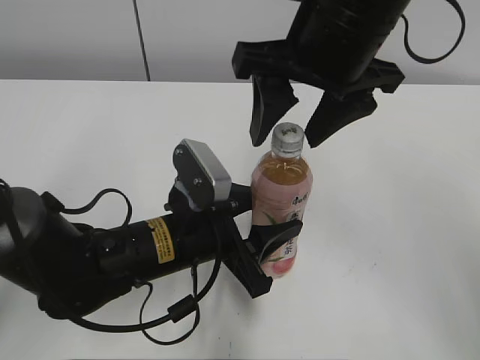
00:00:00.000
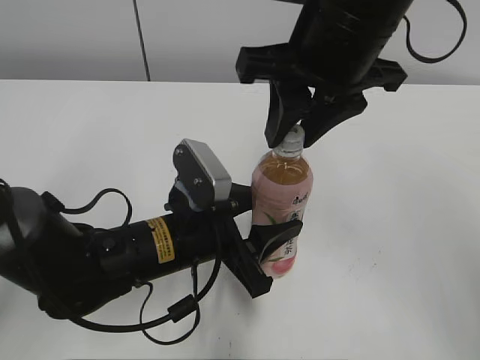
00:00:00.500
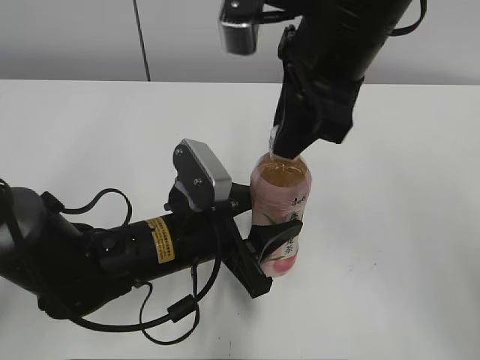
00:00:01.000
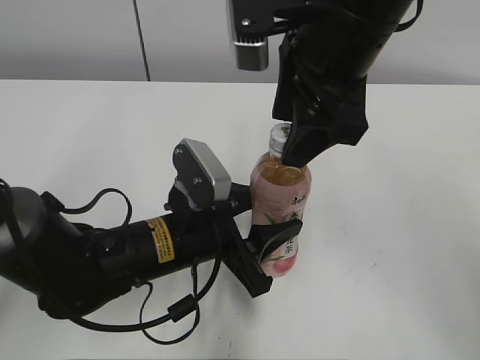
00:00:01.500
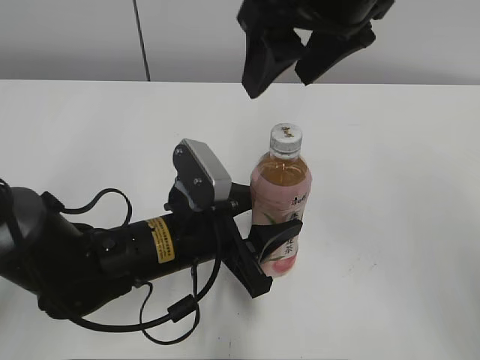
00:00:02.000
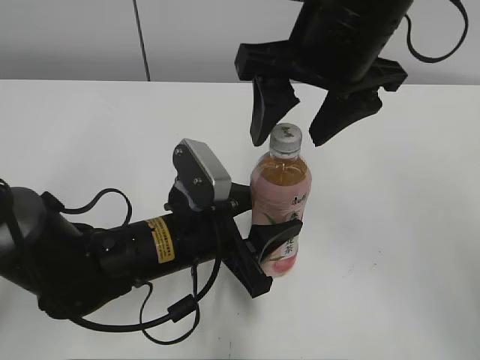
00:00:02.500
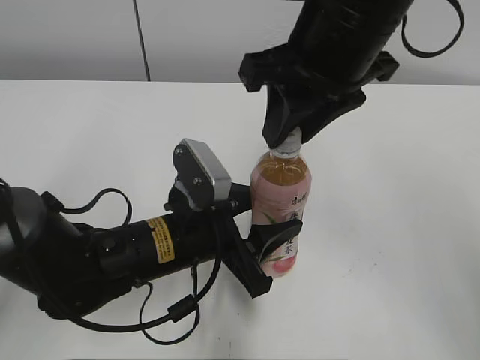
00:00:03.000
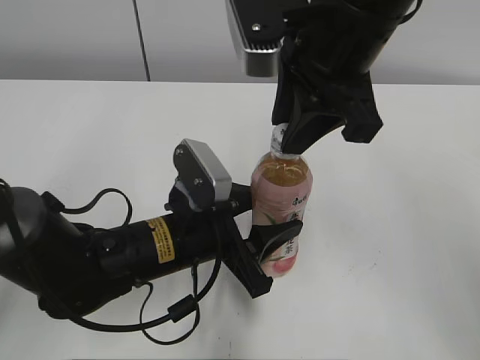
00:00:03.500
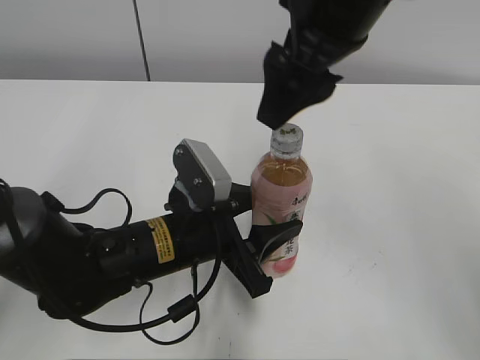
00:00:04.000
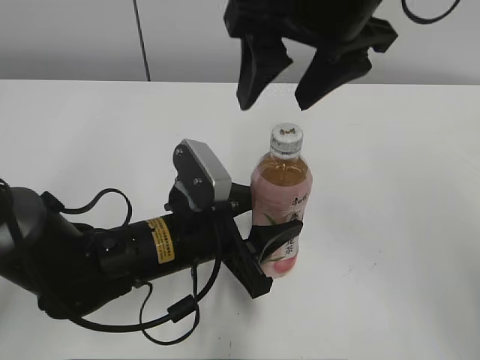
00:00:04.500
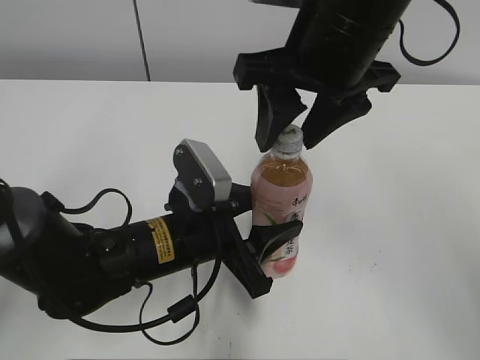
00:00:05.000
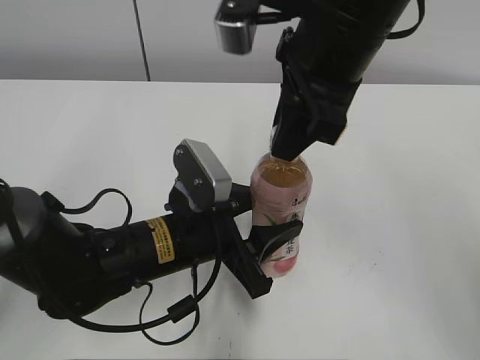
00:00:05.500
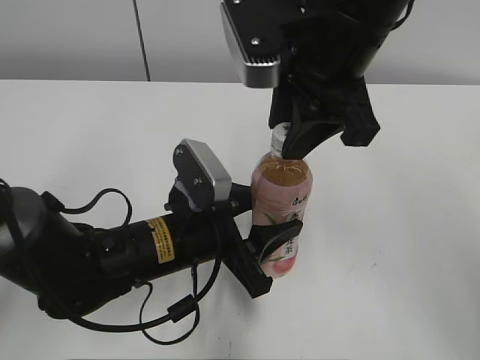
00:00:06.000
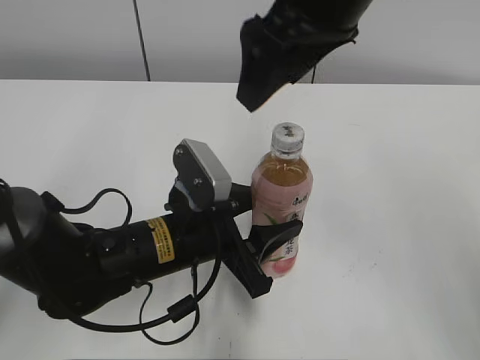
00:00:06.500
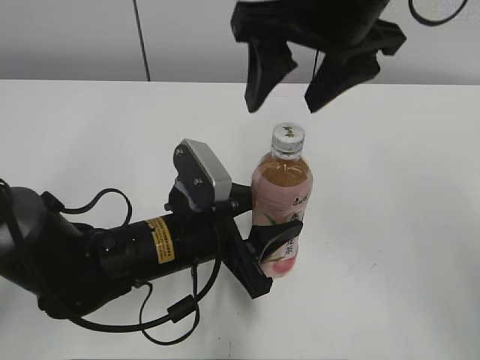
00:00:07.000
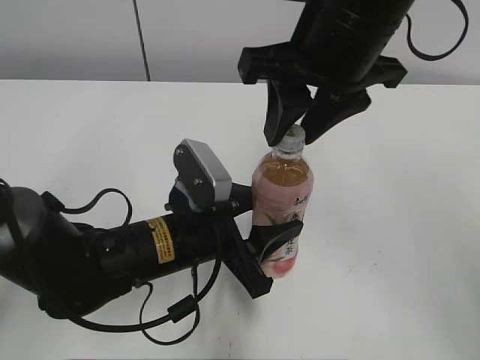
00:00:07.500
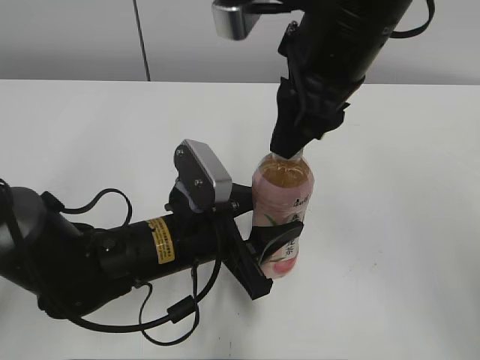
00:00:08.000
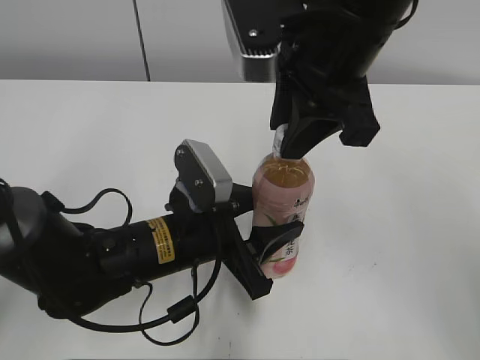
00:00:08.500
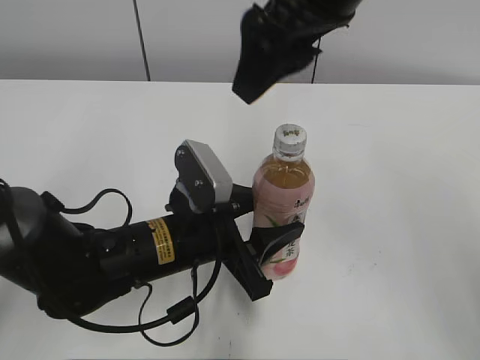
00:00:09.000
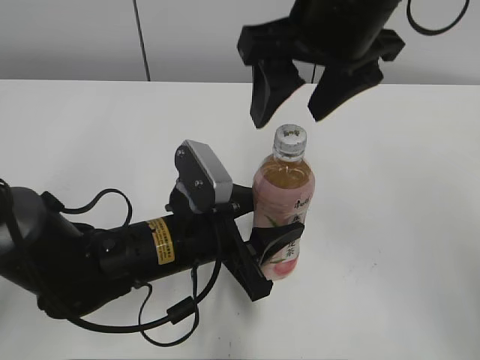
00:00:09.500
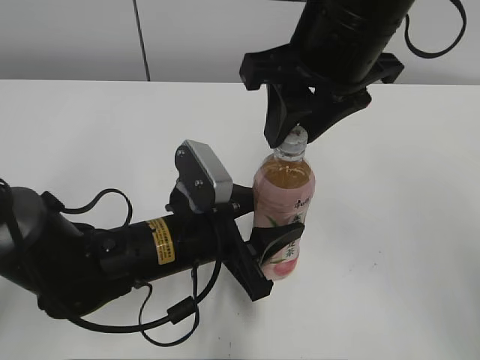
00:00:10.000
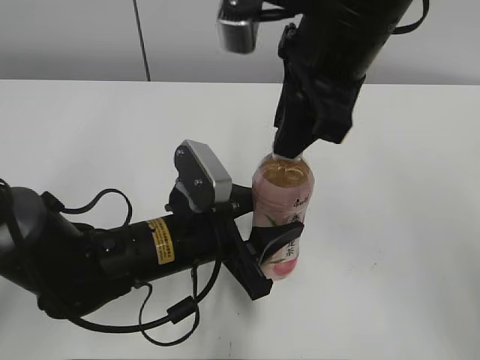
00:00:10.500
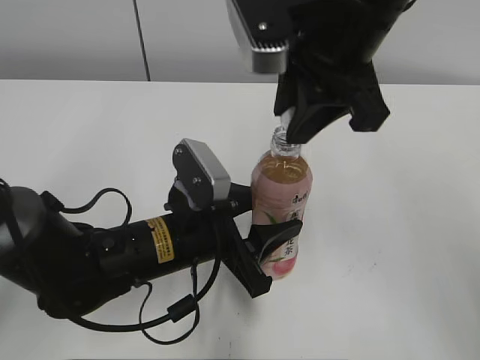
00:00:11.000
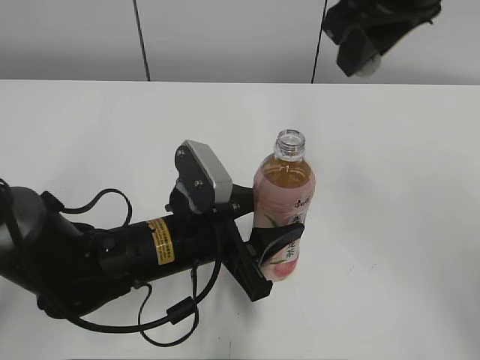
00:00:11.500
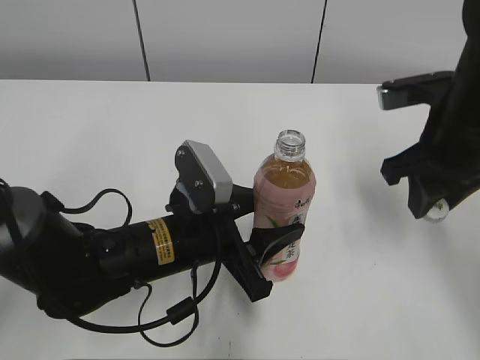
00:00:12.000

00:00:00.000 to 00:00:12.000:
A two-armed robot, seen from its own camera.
00:00:00.000 to 00:00:02.000: The right gripper closes, then opens again.
00:00:02.000 to 00:00:04.000: The right gripper closes and opens again.
00:00:04.000 to 00:00:06.000: The right gripper closes up.
00:00:06.000 to 00:00:08.000: The right gripper opens, then closes once more.
00:00:08.000 to 00:00:10.000: The right gripper opens, then closes again.
00:00:10.000 to 00:00:12.000: The right gripper shifts about 15 cm to the right and downward.

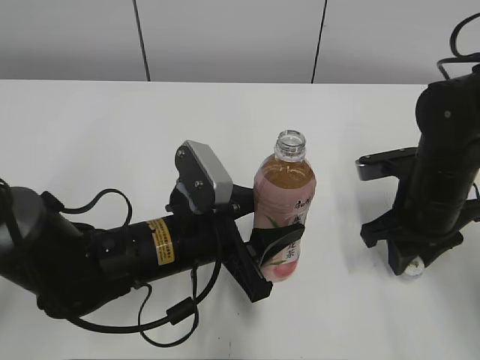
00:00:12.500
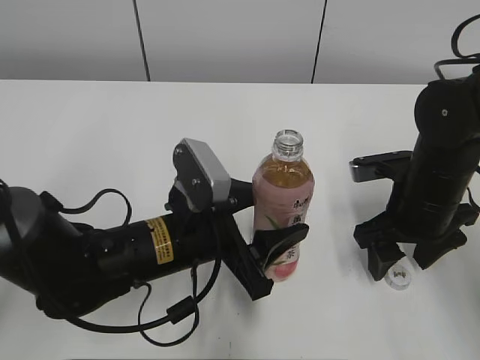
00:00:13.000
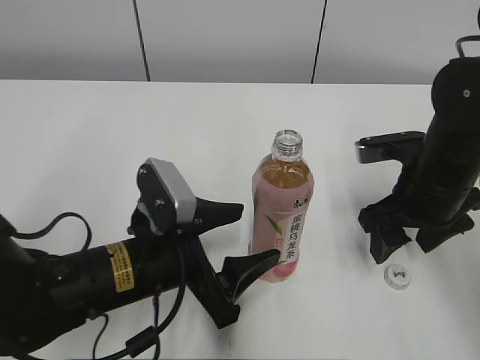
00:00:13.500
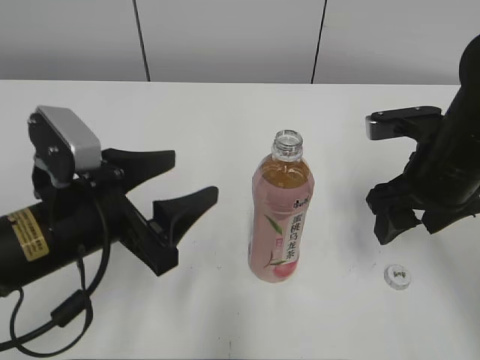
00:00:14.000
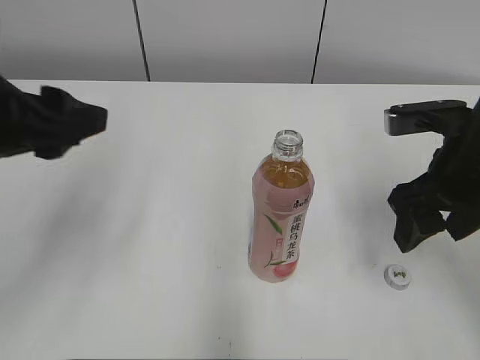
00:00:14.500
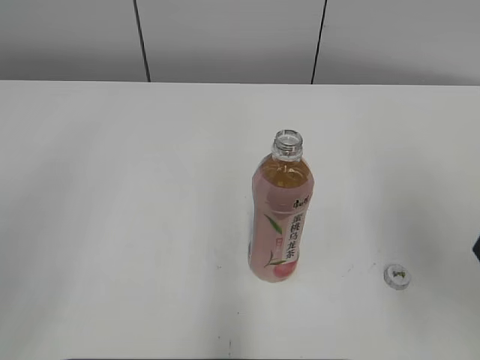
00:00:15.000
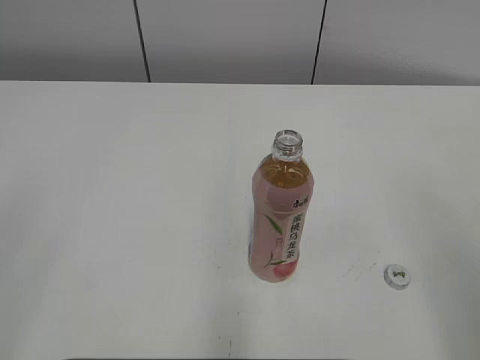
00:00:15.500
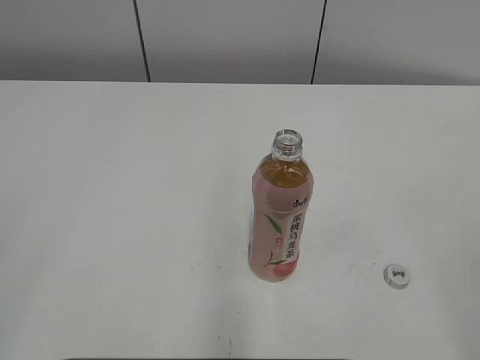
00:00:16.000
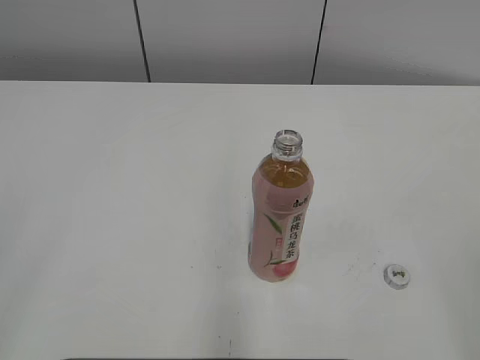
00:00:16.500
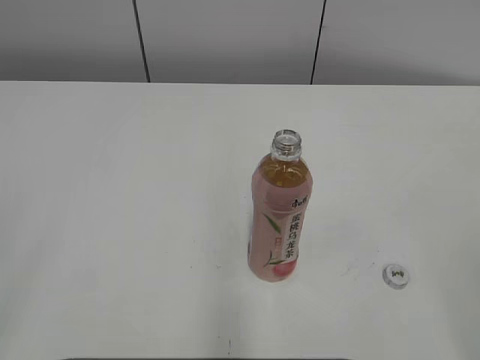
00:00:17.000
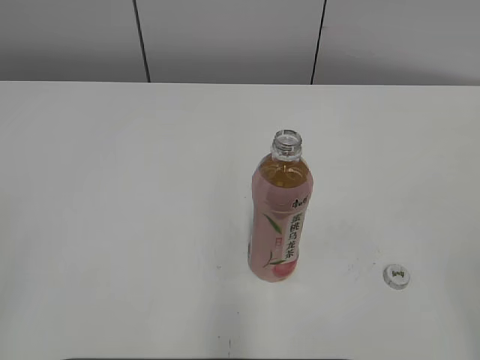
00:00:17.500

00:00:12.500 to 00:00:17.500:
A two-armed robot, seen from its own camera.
00:00:12.500 to 00:00:15.000: The right gripper goes some 20 cm upward and backward, and opens. Meanwhile the left gripper shifts roughly 35 cm upward, to the left and backward, and opens up.
00:00:15.000 to 00:00:17.500: The right gripper shifts some 20 cm backward.
